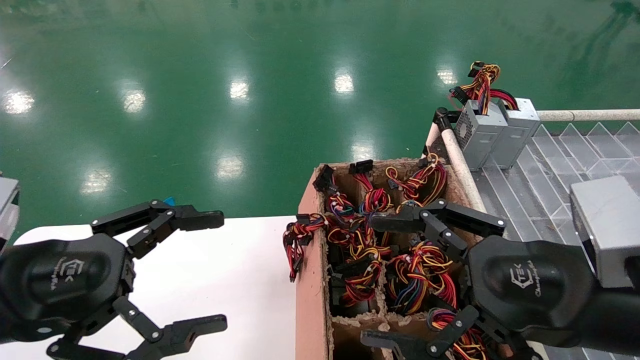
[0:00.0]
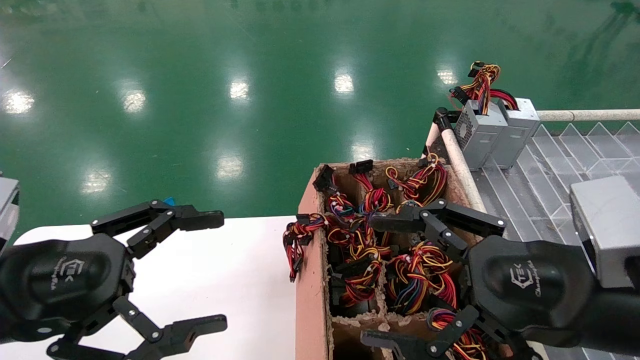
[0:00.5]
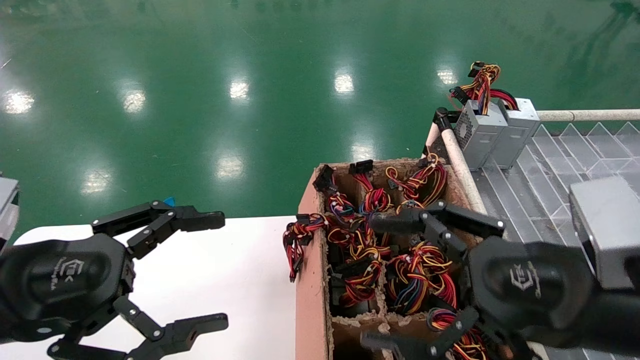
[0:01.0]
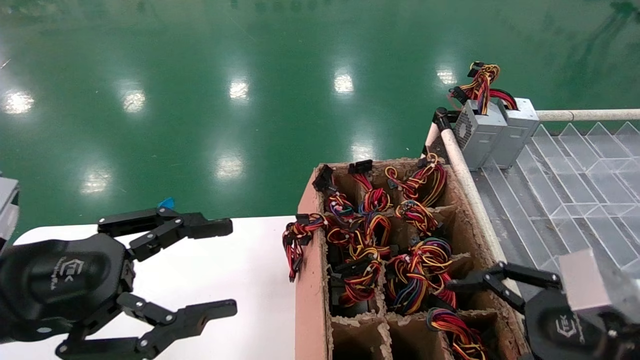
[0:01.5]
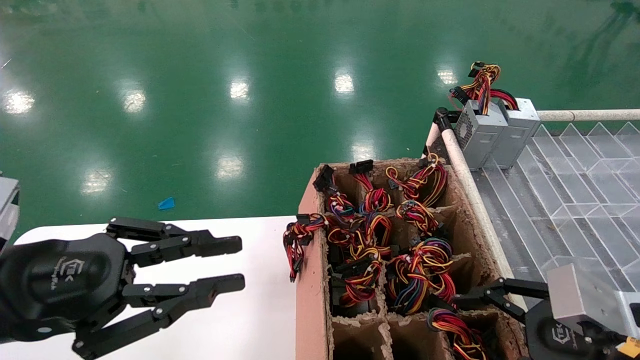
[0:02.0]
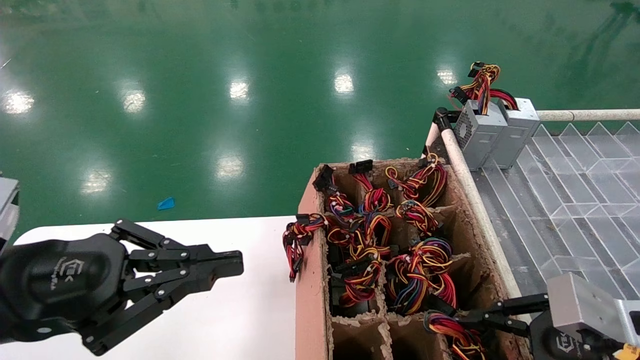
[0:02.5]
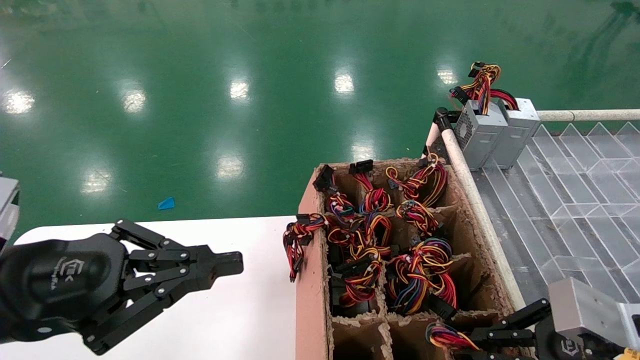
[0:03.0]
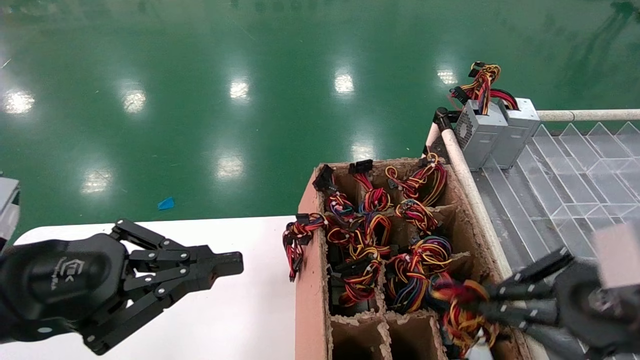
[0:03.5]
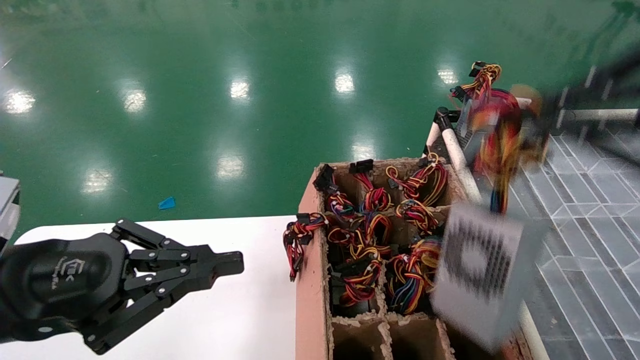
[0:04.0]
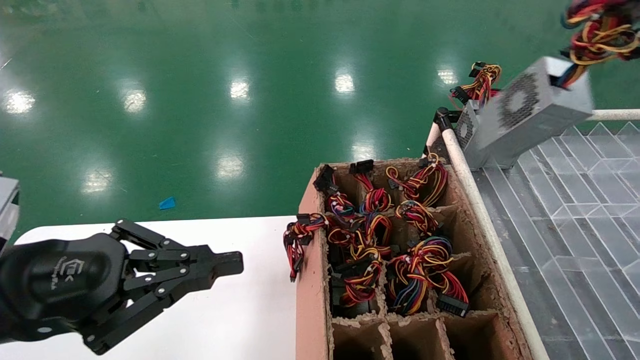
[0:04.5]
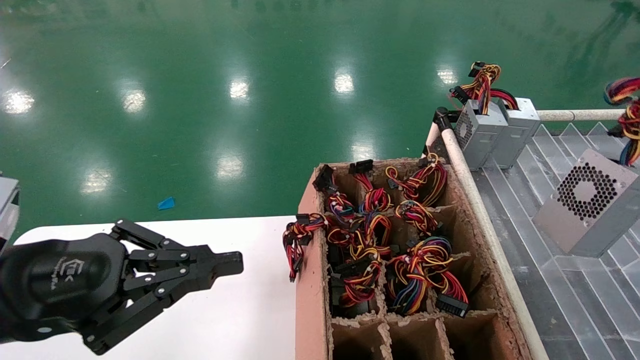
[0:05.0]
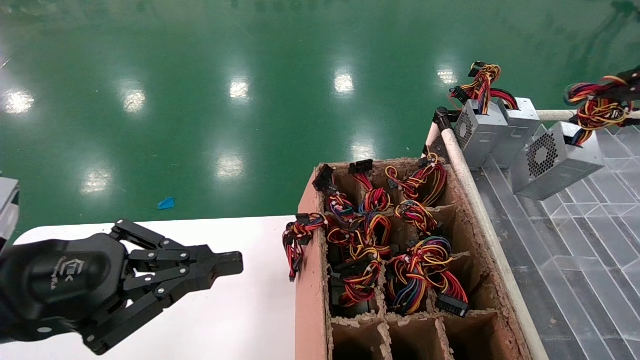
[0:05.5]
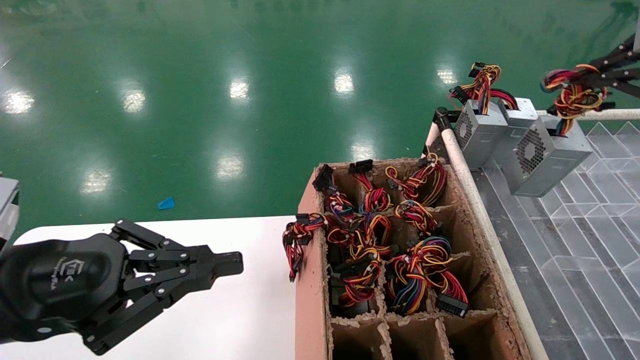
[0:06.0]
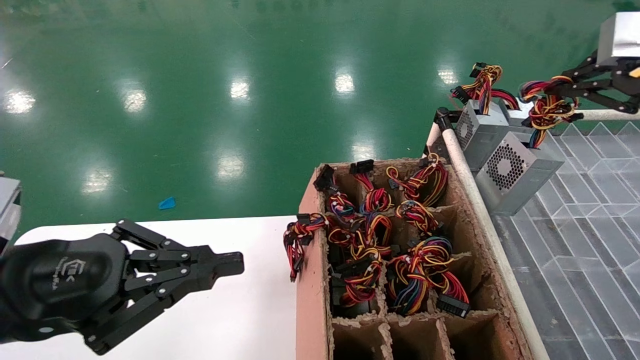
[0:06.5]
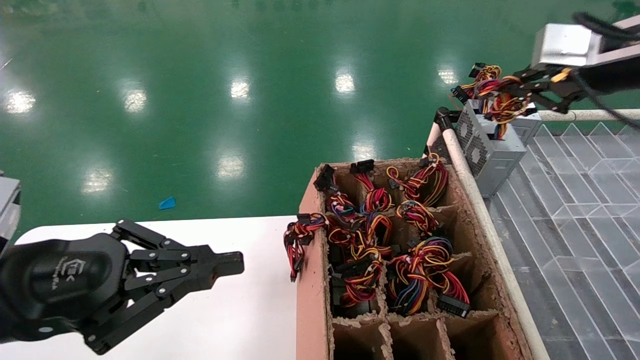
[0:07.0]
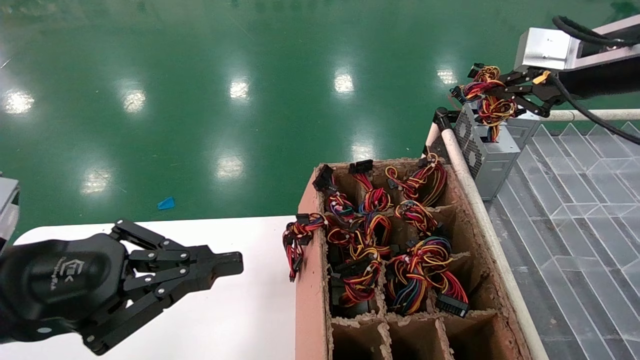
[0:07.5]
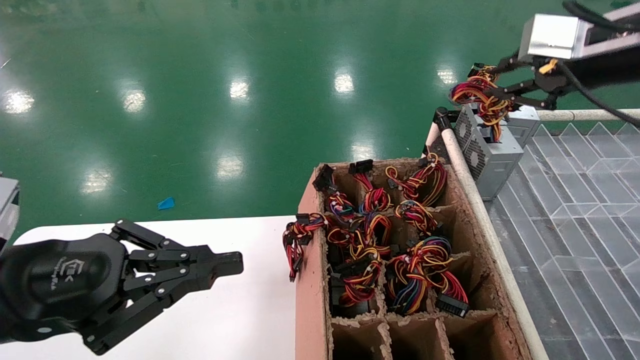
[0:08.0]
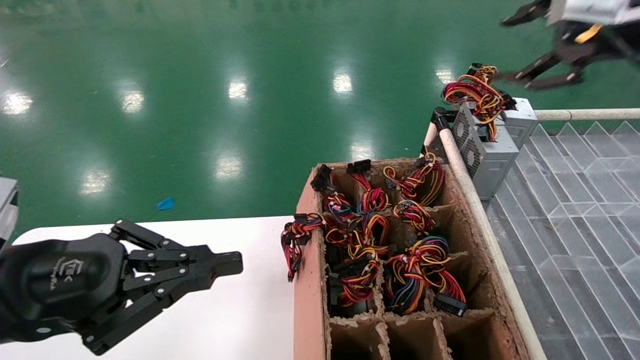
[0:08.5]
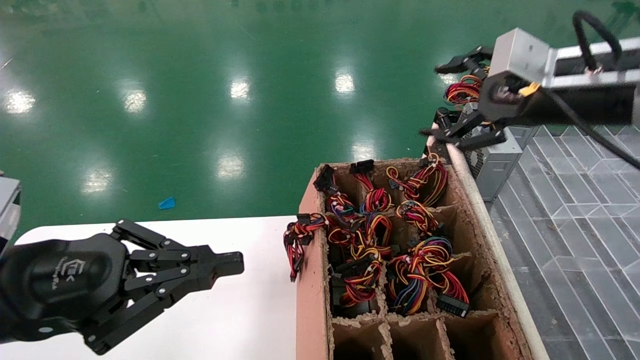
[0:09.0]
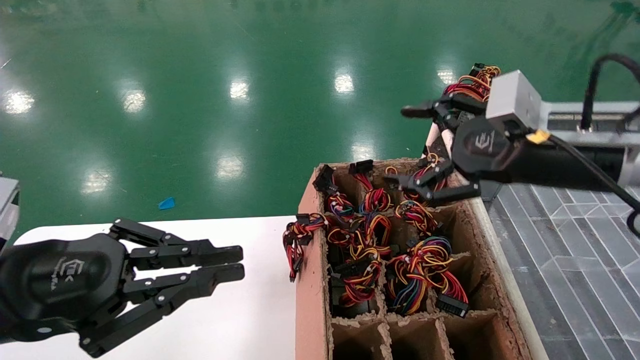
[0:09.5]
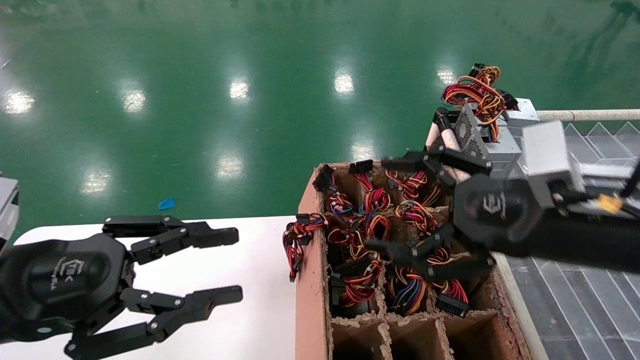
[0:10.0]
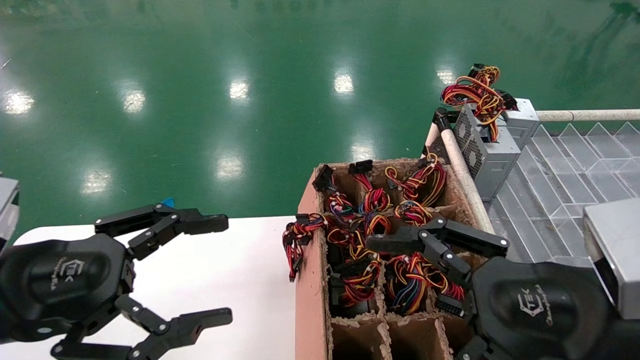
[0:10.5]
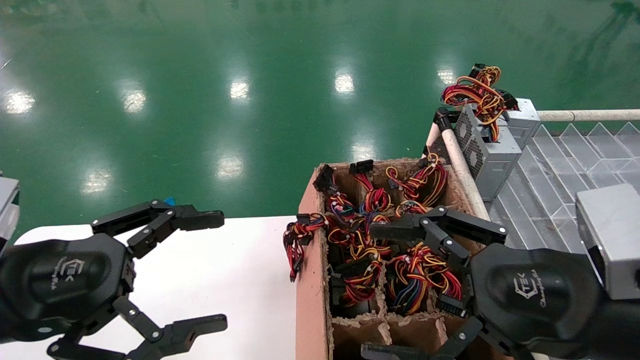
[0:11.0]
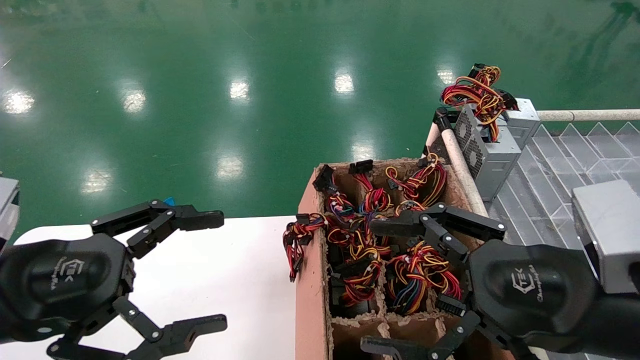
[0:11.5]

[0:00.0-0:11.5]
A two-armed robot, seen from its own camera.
Step, 0:01.5 to 0:03.0: Grab the main unit power supply from the containment box.
Step, 0:03.5 to 0:08.0: Place the main unit power supply in the designated area.
0:00.0 to 0:02.0: The right gripper shifts about 10 cm to the right and downward; the left gripper closes its fingers.
0:02.0 to 0:04.0: The right gripper moves upward, about 20 cm, and closes, while the left gripper closes up.
0:04.0 to 0:06.0: The right gripper heads forward and to the right, covering approximately 15 cm.
0:06.0 to 0:07.5: The right gripper heads forward and to the left, covering about 10 cm.
0:07.5 to 0:09.5: The right gripper heads downward and to the left, covering roughly 15 cm, and opens up.
0:09.5 to 0:11.5: The right gripper travels backward and downward by roughly 15 cm; the left gripper opens up.

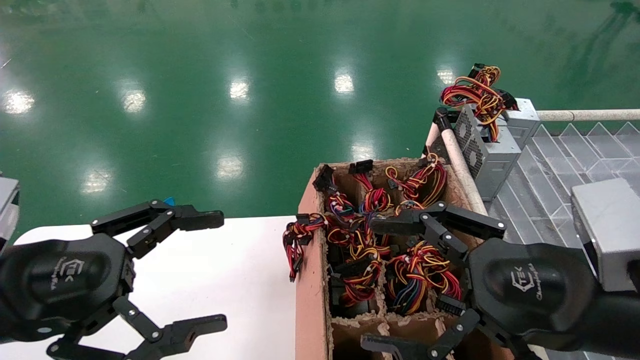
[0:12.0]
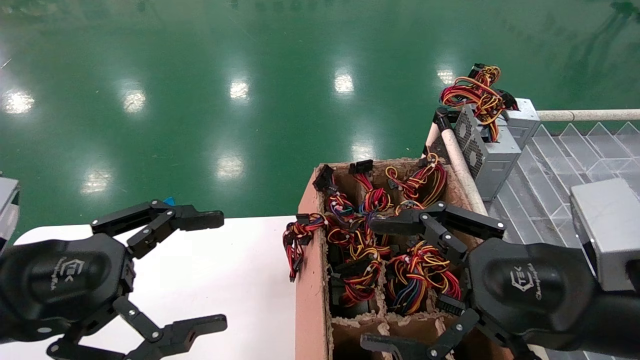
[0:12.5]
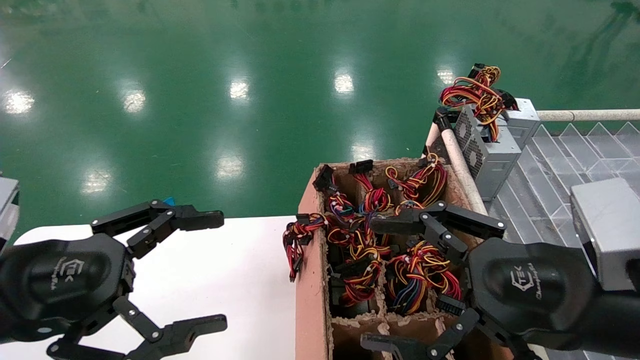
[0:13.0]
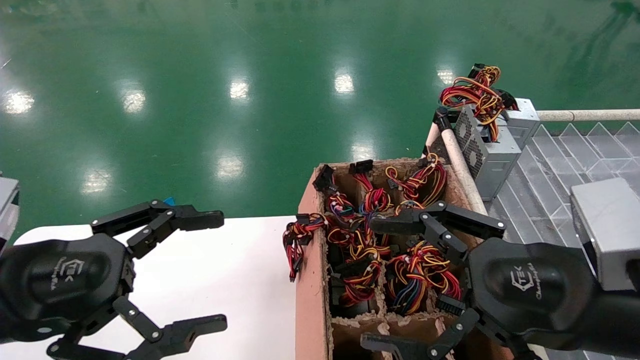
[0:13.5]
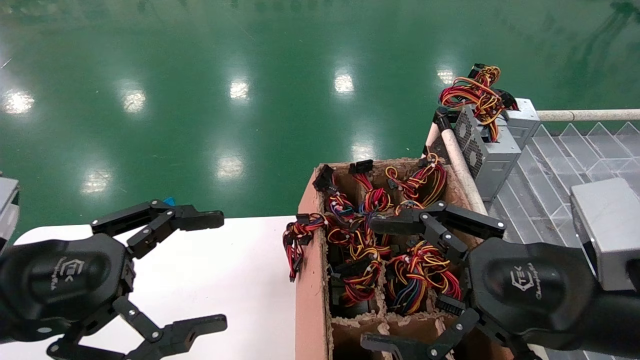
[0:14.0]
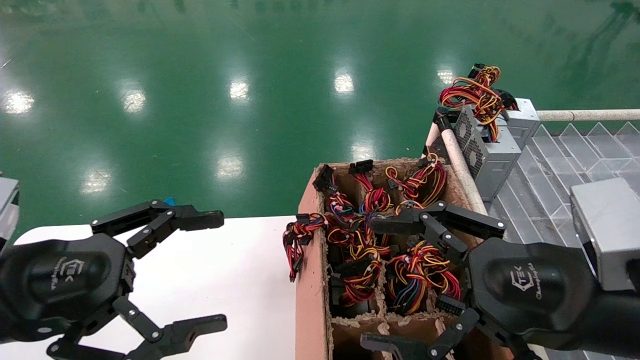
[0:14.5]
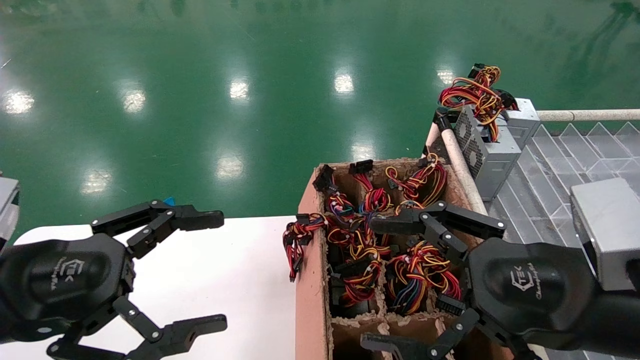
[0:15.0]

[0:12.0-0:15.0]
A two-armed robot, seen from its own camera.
0:12.0 to 0:15.0: Both grippers stay put.
